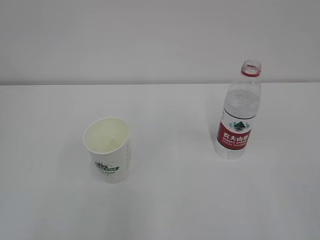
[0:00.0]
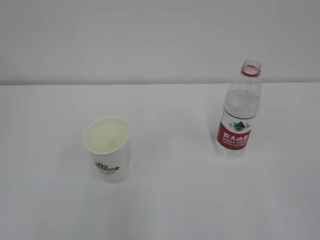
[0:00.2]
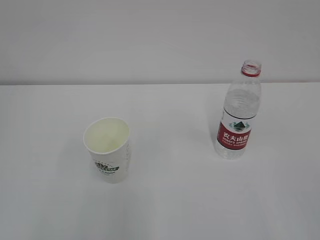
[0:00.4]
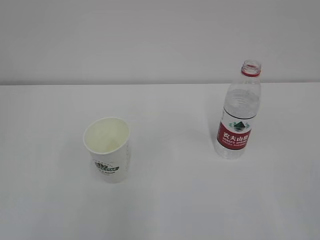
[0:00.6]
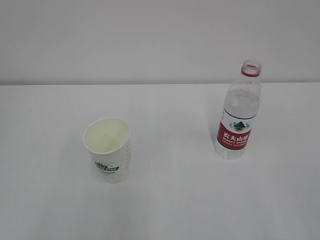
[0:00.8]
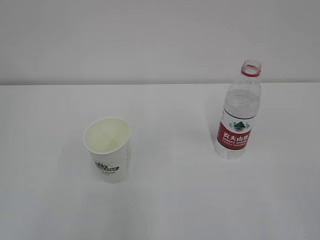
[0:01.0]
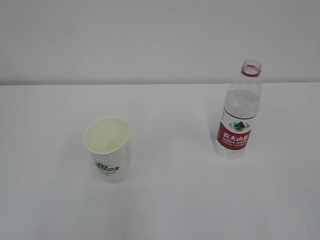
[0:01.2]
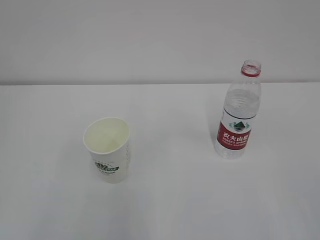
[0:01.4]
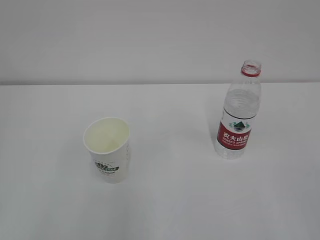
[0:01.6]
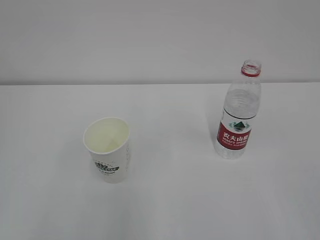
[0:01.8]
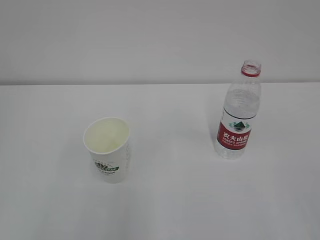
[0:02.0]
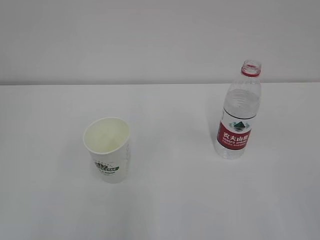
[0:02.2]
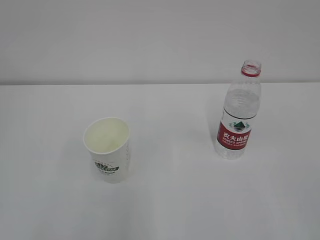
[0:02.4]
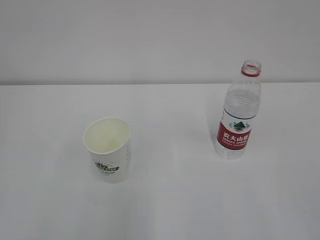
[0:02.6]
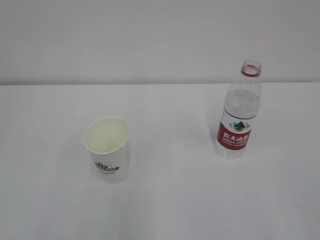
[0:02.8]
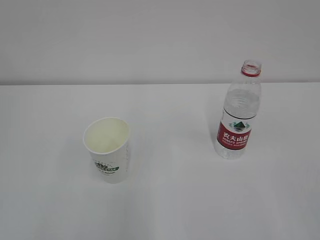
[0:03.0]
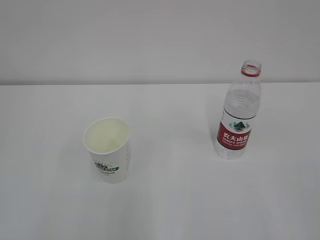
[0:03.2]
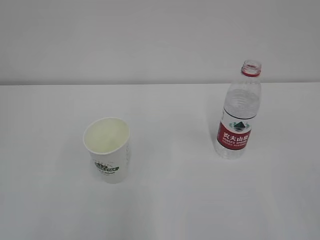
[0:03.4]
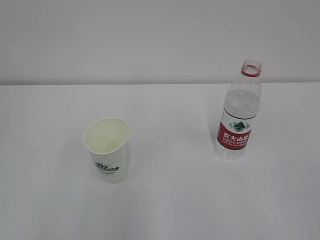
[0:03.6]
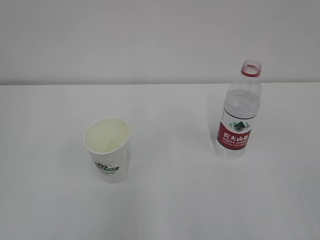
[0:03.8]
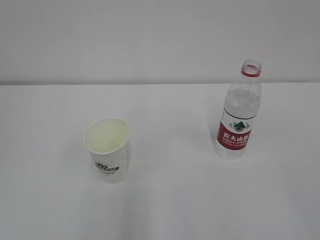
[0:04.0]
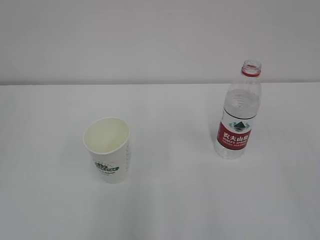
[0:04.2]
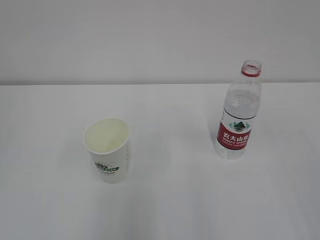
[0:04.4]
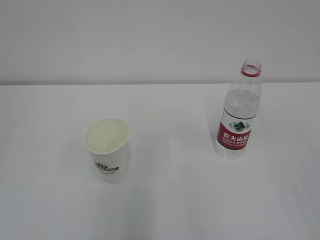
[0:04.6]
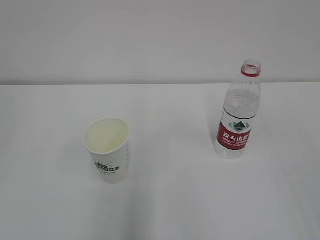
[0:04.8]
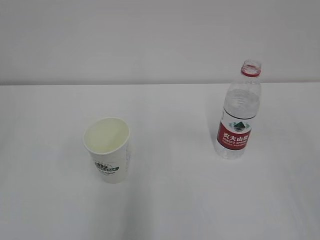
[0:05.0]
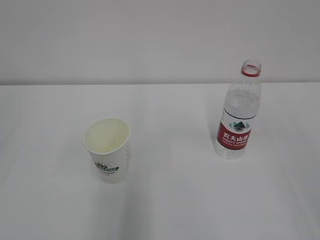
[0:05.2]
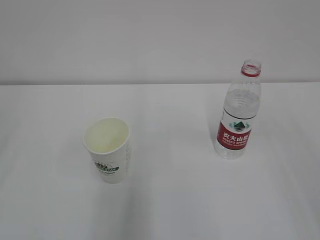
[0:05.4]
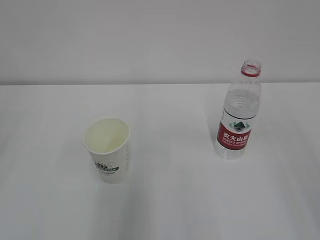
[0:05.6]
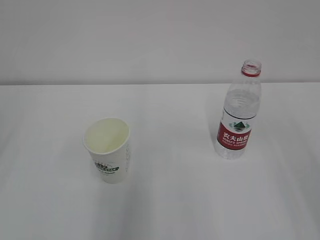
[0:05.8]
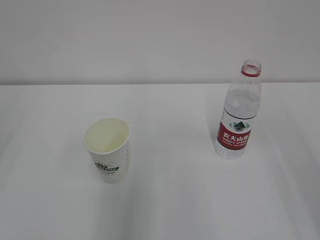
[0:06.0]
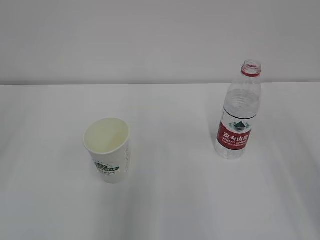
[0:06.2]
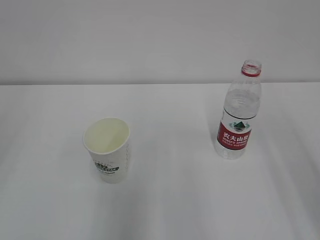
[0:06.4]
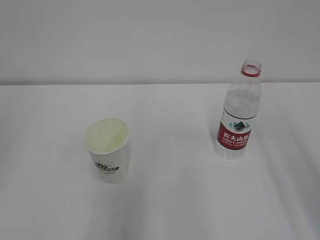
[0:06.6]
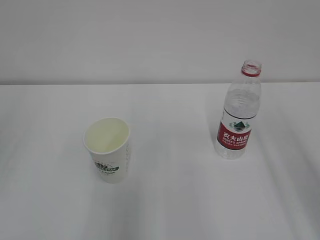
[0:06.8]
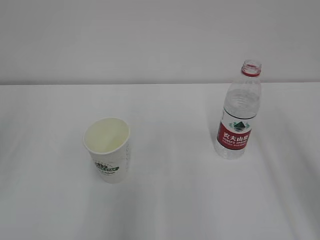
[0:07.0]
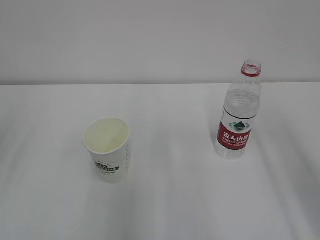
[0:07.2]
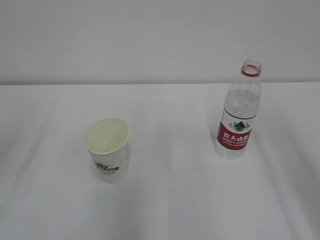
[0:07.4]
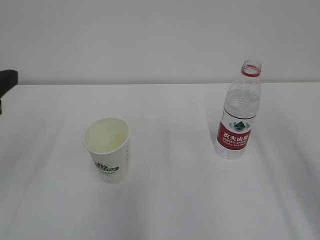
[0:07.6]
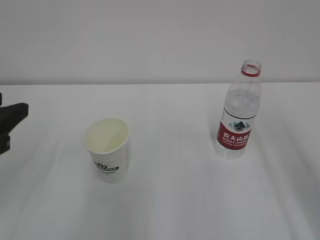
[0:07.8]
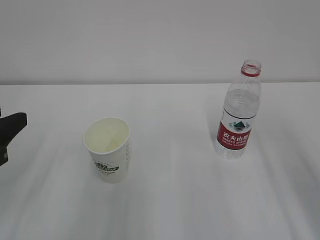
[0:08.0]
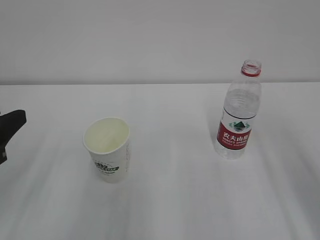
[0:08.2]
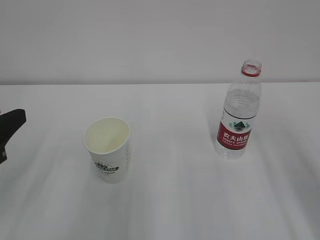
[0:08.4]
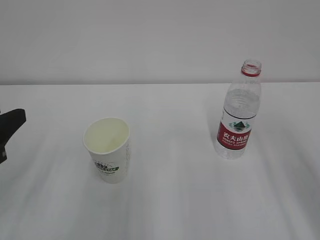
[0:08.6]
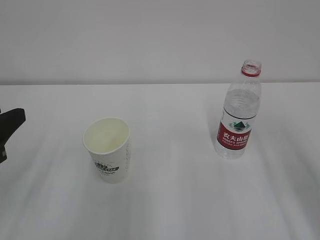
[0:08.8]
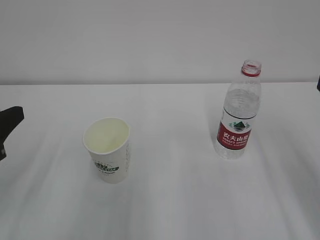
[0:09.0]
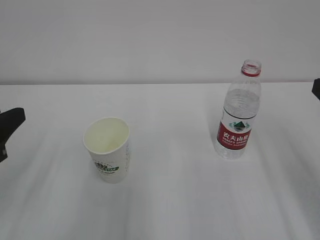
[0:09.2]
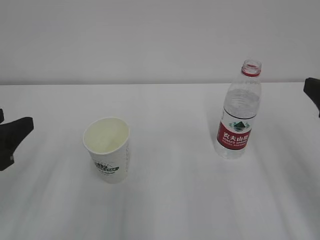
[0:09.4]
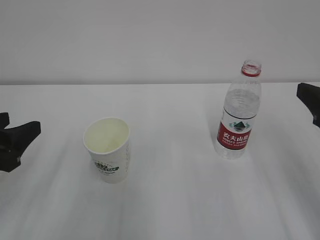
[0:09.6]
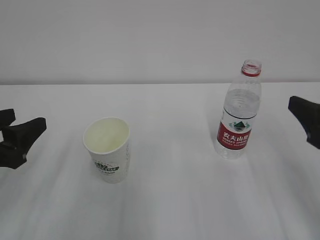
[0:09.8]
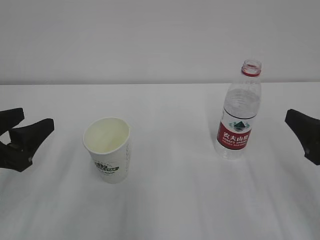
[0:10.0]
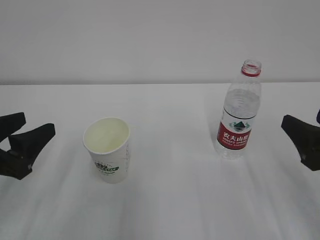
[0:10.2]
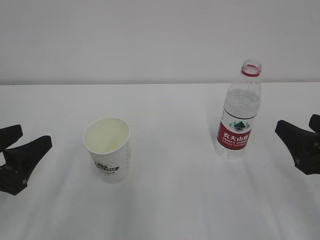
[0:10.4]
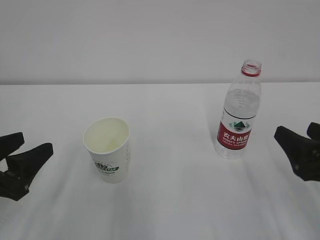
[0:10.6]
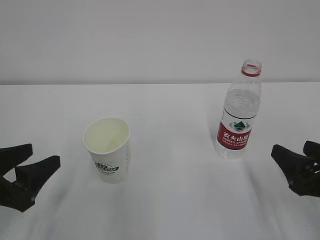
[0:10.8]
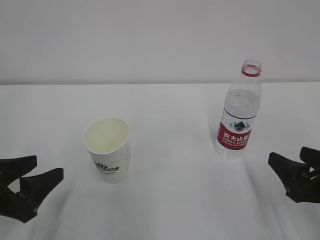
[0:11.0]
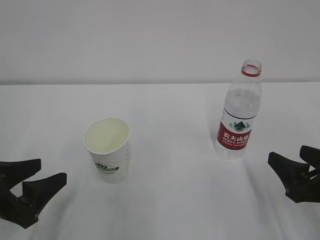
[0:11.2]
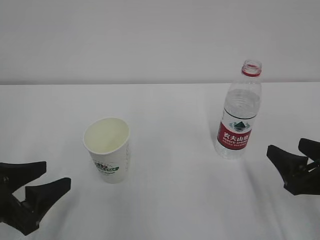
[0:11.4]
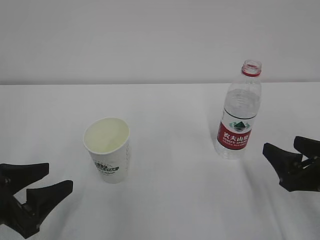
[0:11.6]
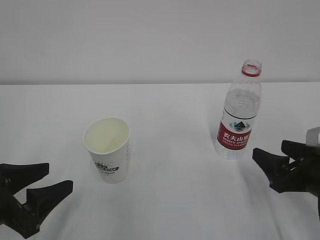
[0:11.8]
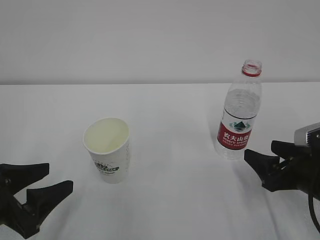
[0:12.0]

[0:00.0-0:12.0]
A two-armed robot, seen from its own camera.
0:01.6 to 0:03.0: Both grippers stay about where they are.
0:07.6 to 0:09.0: The left gripper heads downward, covering approximately 5 cm.
0:09.0 to 0:10.4: The left gripper shifts roughly 5 cm downward, and opens up, while the right gripper shifts roughly 10 cm downward.
0:10.4 to 0:12.0: The right gripper shifts some 5 cm downward.

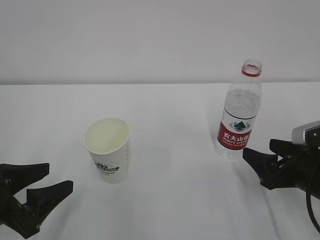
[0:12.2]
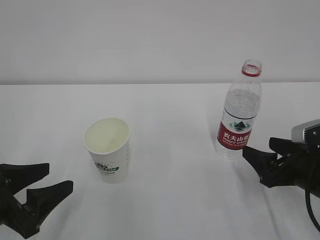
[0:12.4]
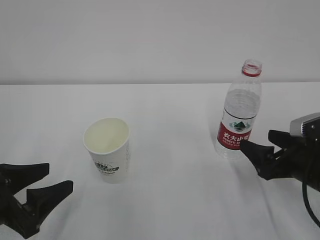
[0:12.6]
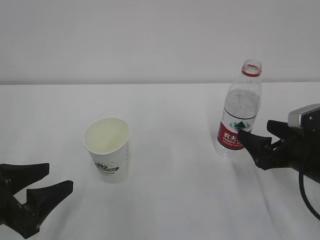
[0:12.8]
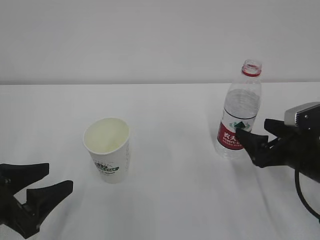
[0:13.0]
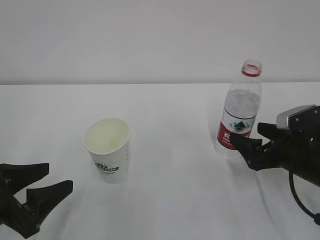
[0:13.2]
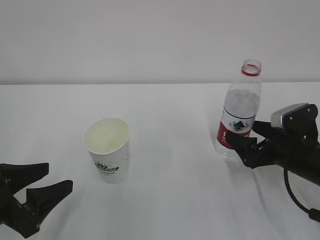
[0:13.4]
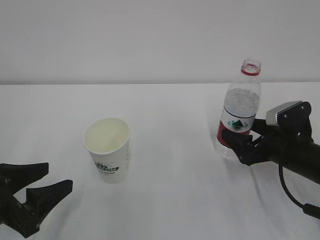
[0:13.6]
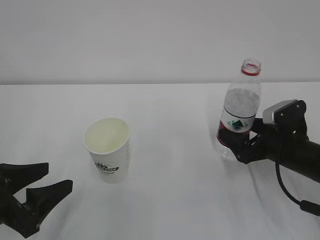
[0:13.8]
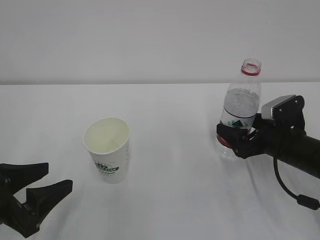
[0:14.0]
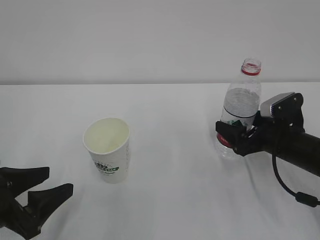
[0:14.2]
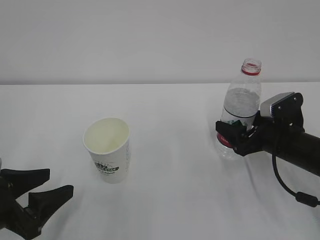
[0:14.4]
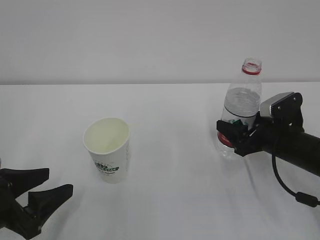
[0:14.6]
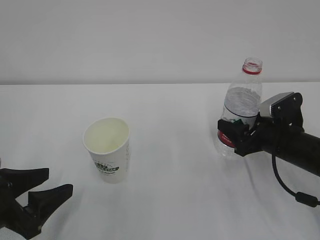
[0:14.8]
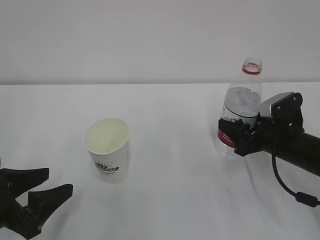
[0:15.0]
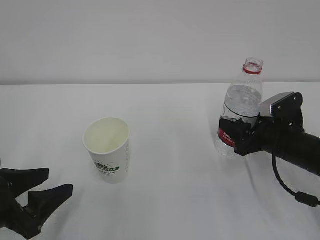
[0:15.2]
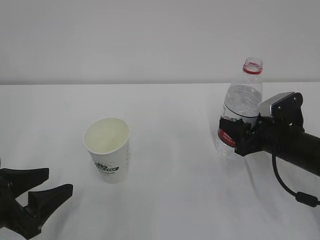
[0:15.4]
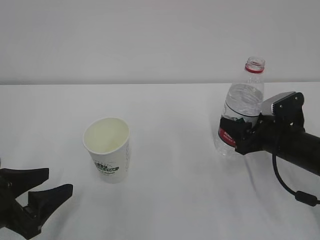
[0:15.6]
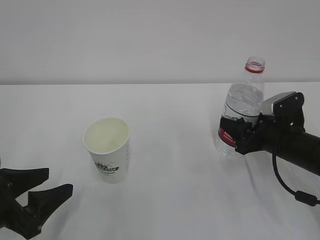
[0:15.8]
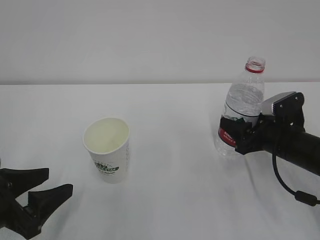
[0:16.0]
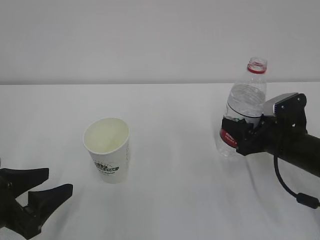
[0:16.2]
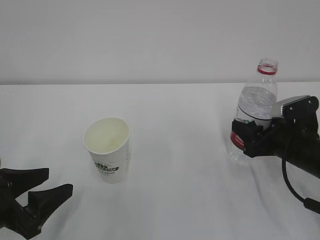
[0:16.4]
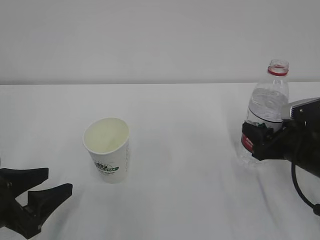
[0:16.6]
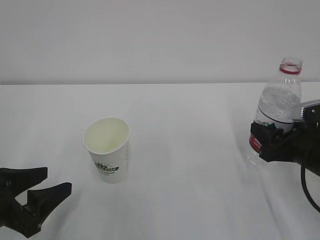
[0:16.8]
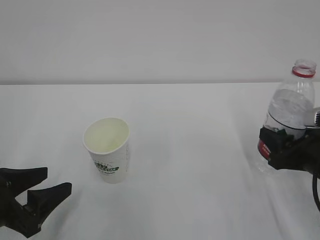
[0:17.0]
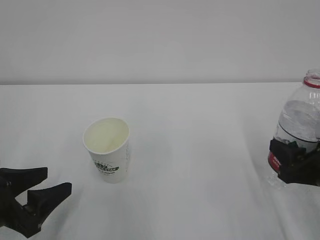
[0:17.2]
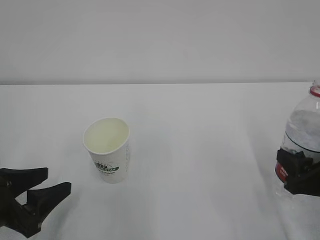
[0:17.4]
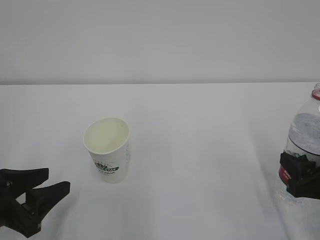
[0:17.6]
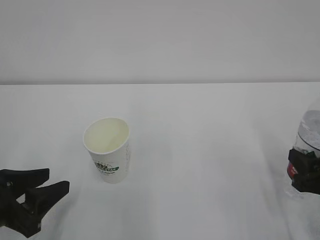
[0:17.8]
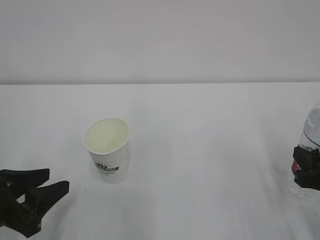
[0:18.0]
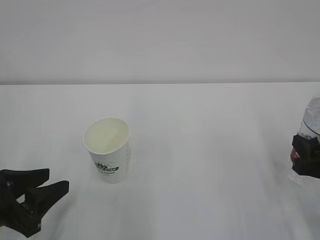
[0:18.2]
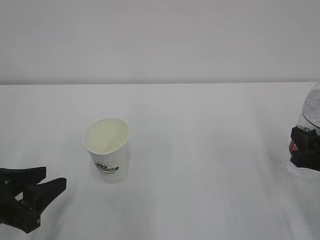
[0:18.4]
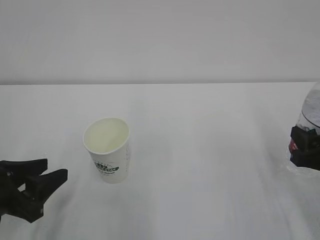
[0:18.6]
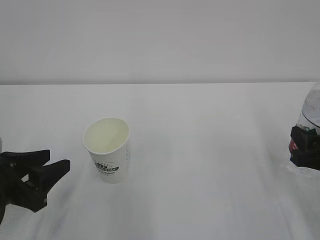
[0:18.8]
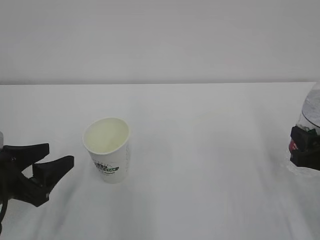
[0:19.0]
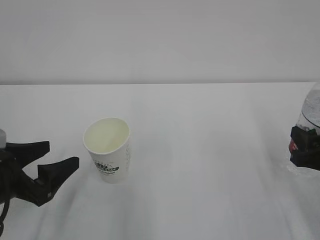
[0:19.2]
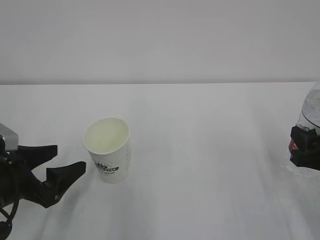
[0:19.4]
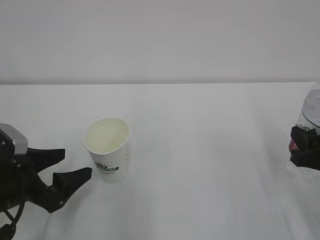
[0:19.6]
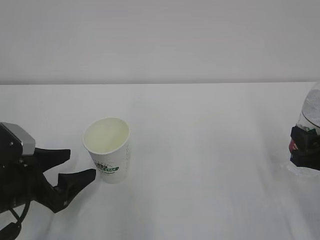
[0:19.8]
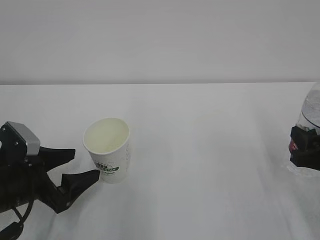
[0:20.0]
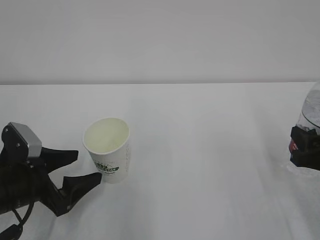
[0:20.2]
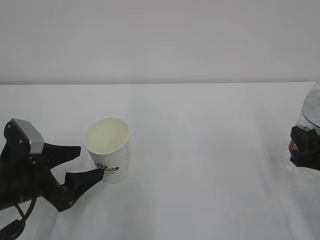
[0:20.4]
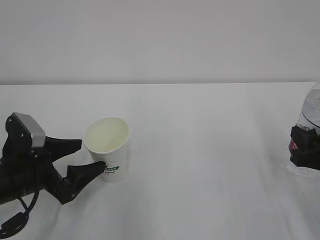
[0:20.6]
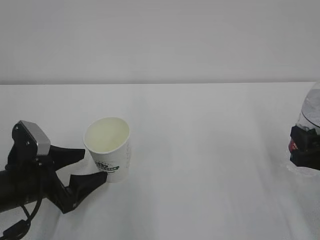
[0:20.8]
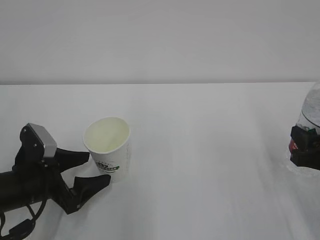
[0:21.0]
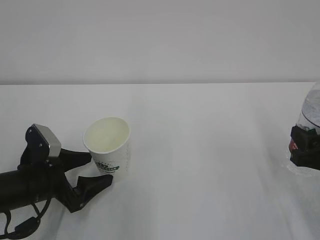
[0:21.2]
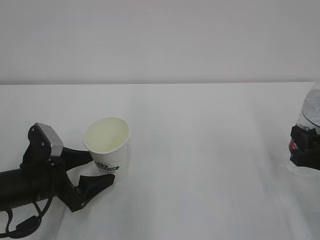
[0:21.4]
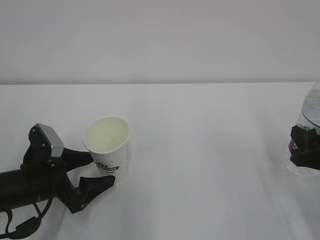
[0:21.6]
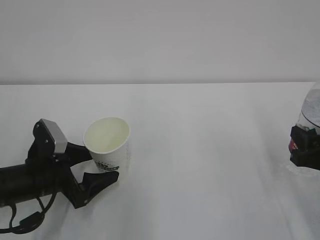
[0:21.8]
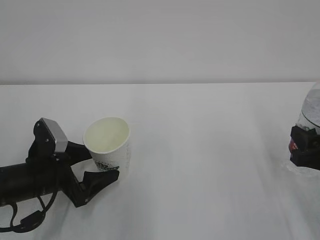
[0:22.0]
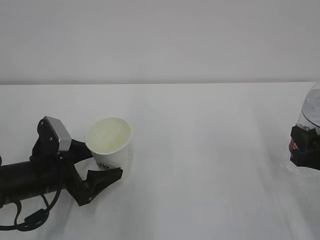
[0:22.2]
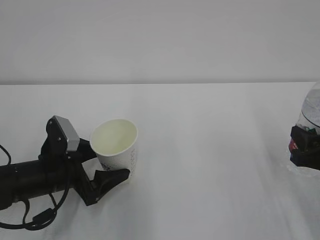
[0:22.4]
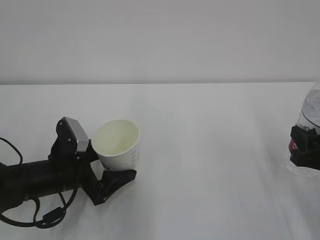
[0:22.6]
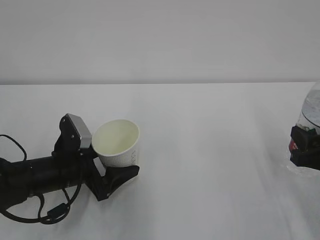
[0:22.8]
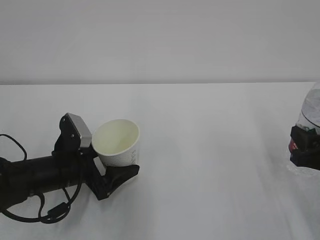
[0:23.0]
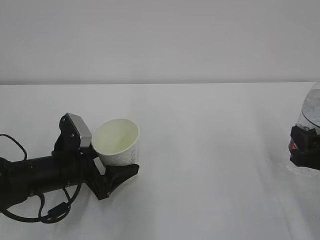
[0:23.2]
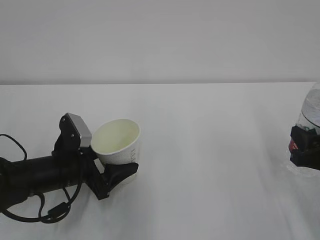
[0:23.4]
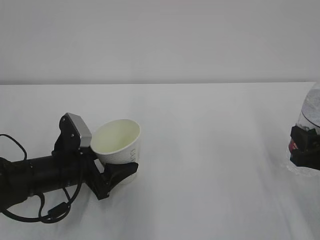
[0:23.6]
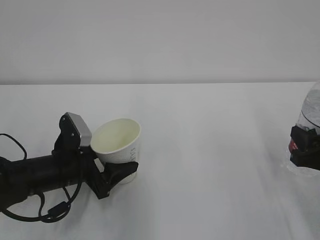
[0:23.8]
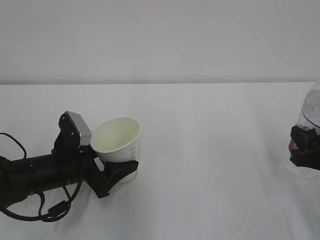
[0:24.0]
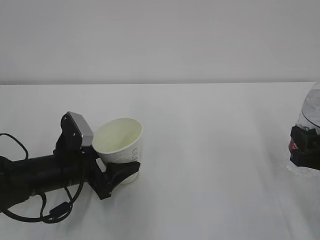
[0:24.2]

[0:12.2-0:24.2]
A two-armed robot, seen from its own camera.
0:12.2 to 0:13.8: The right gripper shifts roughly 5 cm forward.
0:13.8 to 0:15.2: The right gripper closes up.
0:15.2 to 0:16.6: There are only small adjustments of the grippers.
0:16.6 to 0:18.2: The right gripper heads backward, covering about 5 cm. The left gripper closes.
0:18.2 to 0:19.8: The left gripper shifts by about 5 cm, and opens its fingers.
0:19.8 to 0:21.2: The grippers make only small movements.
0:21.2 to 0:22.6: The grippers make only small movements.
0:22.6 to 0:24.2: The left gripper closes.
